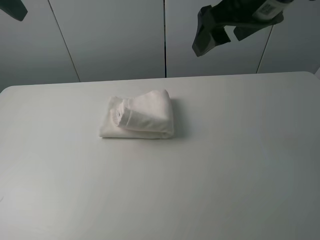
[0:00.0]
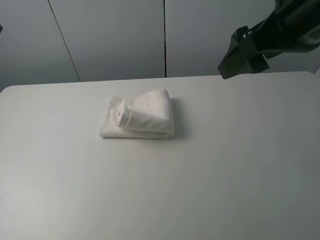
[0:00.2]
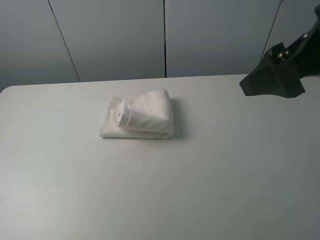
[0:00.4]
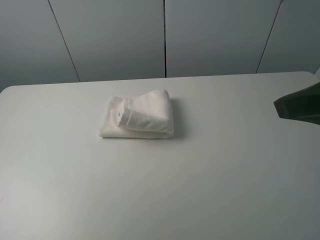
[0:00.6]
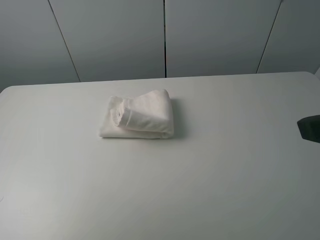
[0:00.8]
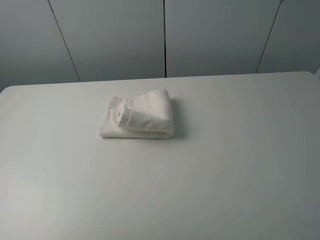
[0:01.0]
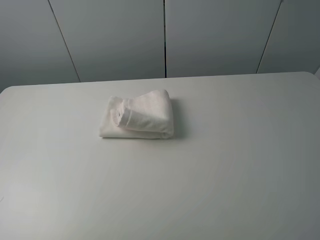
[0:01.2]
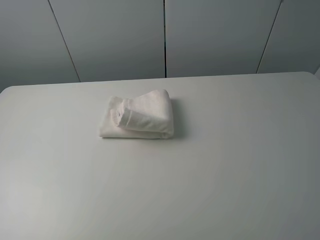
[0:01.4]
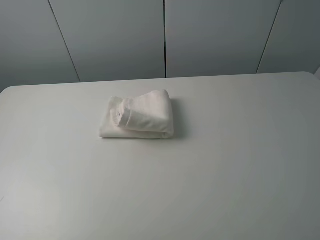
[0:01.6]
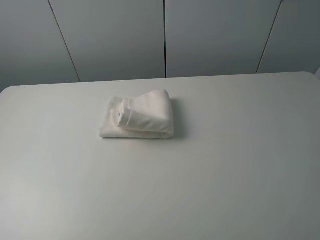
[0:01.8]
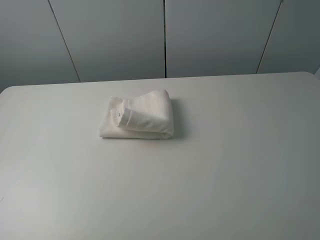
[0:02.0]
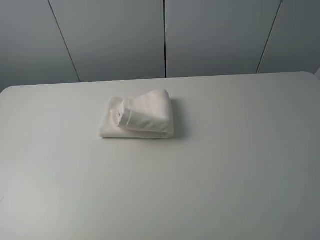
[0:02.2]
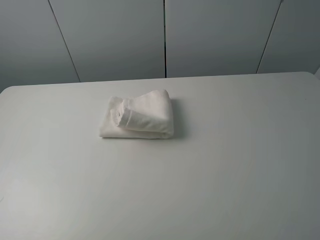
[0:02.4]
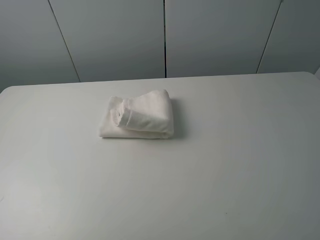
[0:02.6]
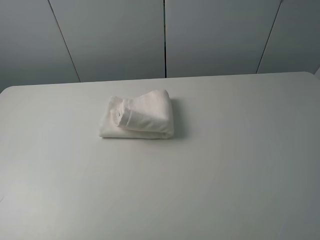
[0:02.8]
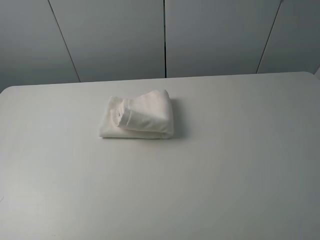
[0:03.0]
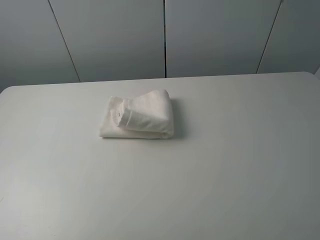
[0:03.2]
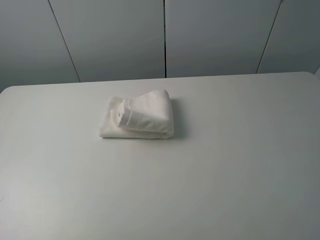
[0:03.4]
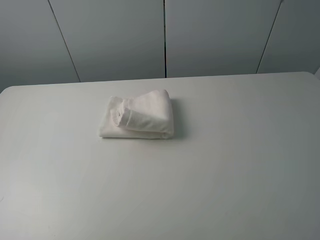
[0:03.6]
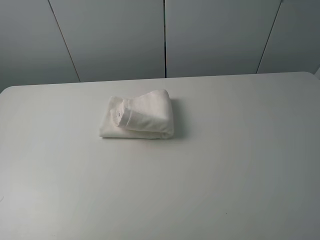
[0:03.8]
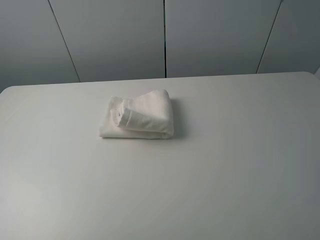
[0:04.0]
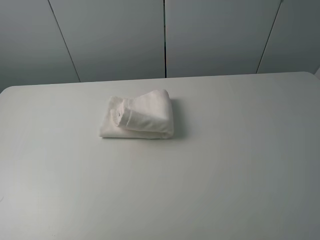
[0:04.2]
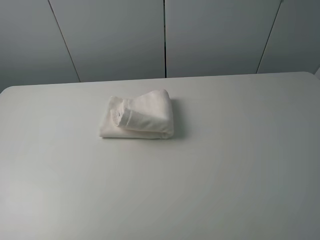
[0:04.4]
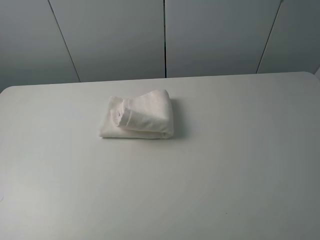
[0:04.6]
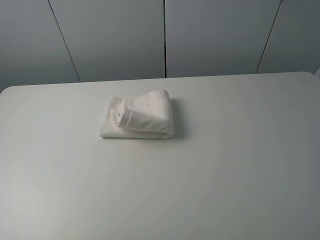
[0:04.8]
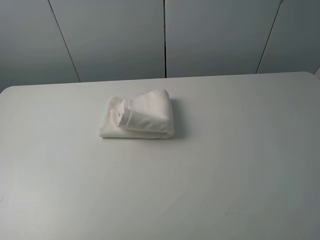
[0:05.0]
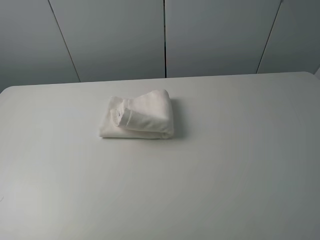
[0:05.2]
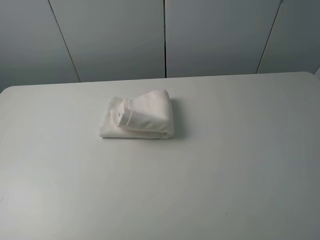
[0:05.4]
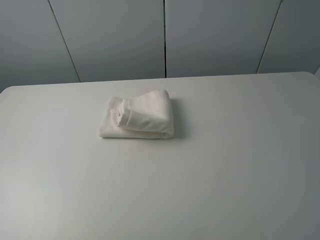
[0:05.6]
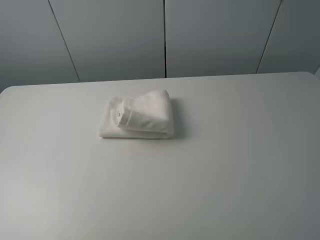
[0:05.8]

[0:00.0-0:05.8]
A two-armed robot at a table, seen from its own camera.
Task of the whole recording: fold the towels on the table.
0:00.0 to 0:01.4: The left gripper heads backward and downward, covering about 30 cm. The right gripper goes approximately 30 cm backward and to the right.
0:04.4 to 0:05.8: Neither gripper changes place.

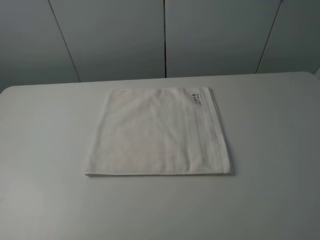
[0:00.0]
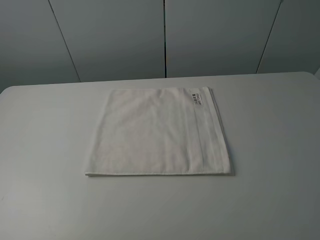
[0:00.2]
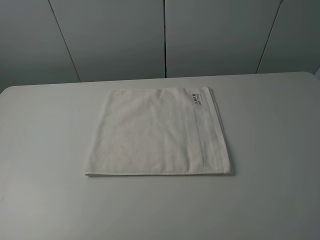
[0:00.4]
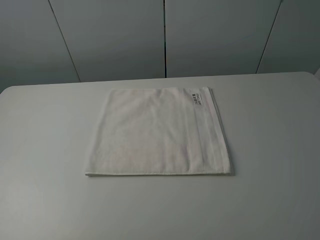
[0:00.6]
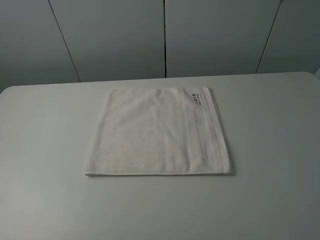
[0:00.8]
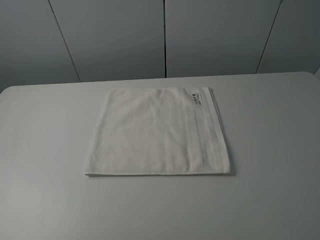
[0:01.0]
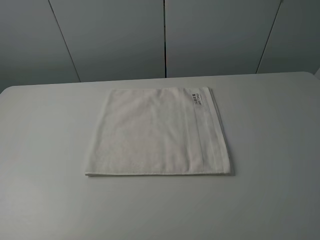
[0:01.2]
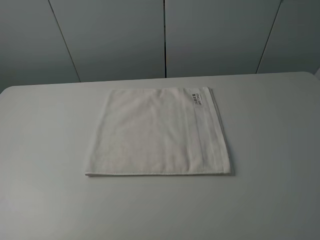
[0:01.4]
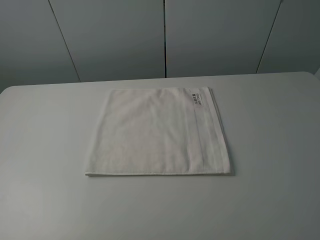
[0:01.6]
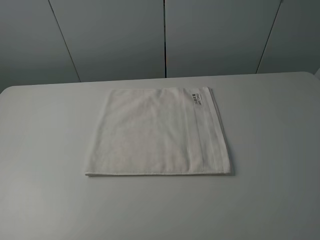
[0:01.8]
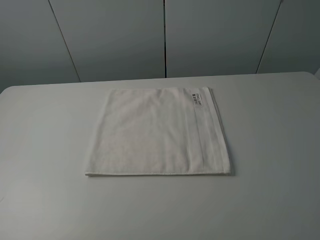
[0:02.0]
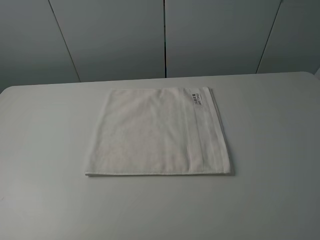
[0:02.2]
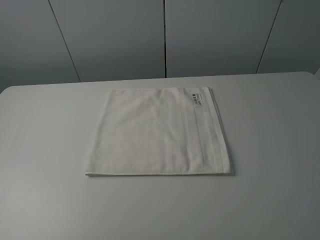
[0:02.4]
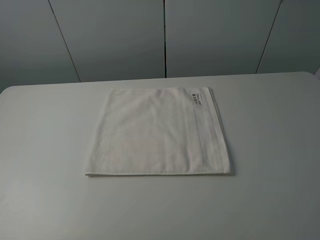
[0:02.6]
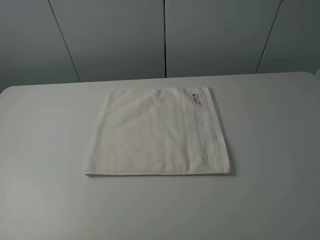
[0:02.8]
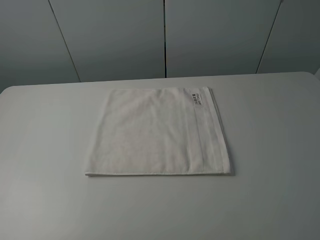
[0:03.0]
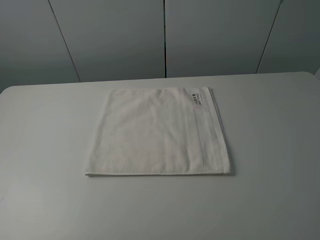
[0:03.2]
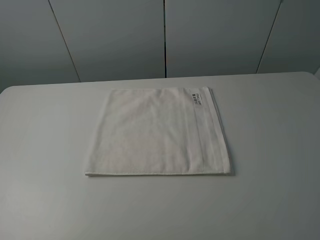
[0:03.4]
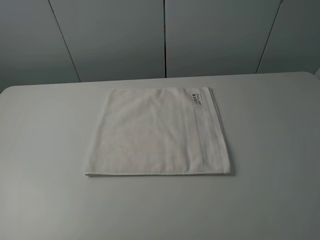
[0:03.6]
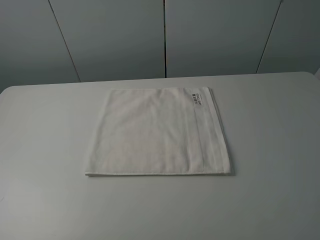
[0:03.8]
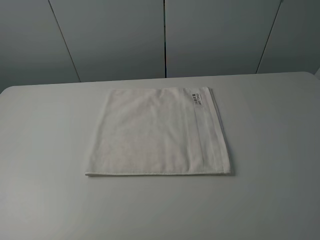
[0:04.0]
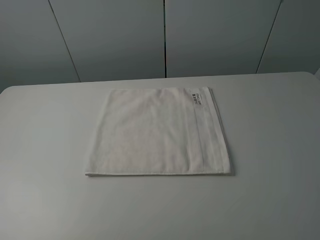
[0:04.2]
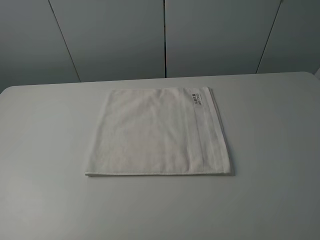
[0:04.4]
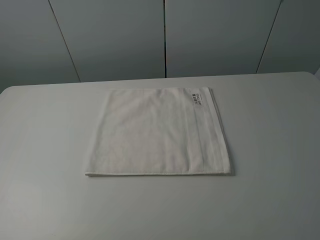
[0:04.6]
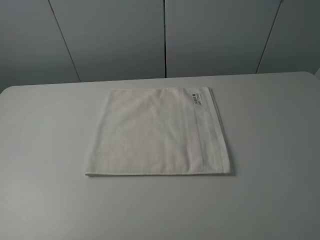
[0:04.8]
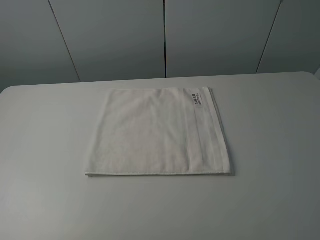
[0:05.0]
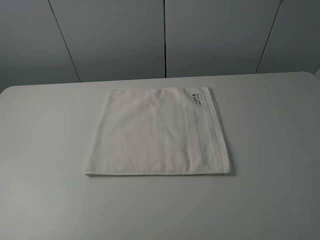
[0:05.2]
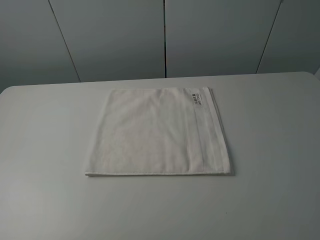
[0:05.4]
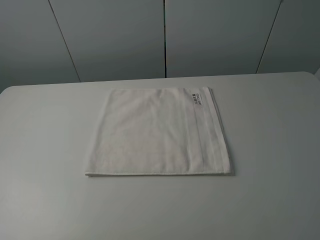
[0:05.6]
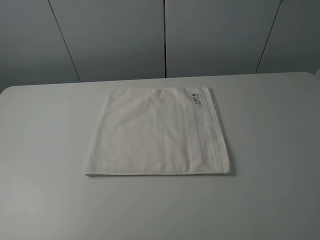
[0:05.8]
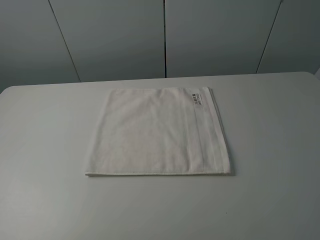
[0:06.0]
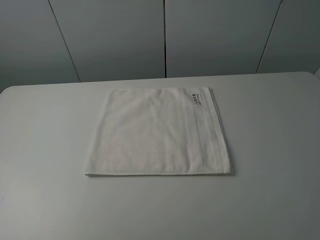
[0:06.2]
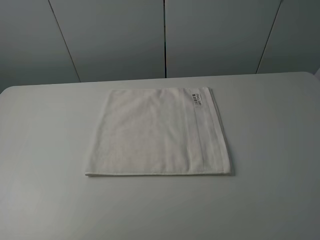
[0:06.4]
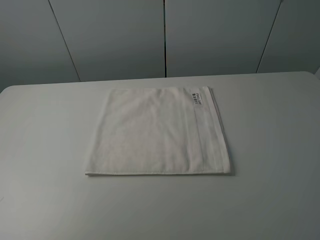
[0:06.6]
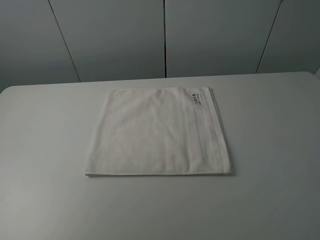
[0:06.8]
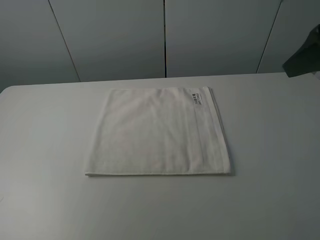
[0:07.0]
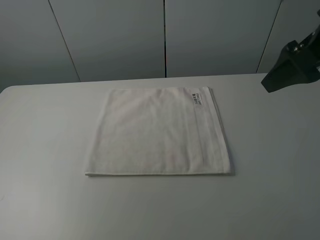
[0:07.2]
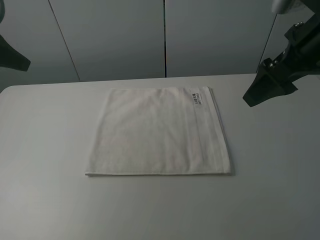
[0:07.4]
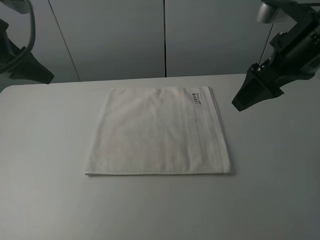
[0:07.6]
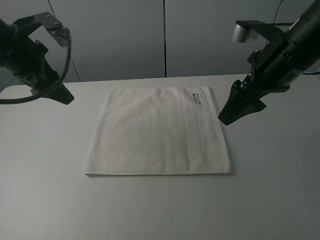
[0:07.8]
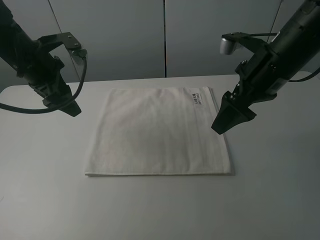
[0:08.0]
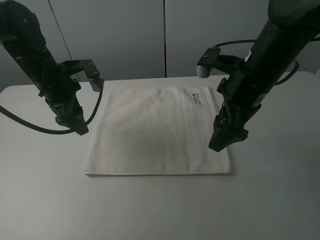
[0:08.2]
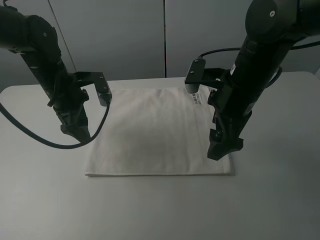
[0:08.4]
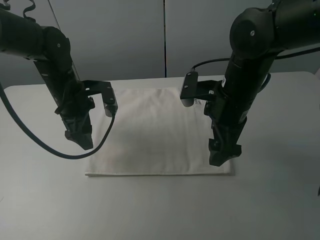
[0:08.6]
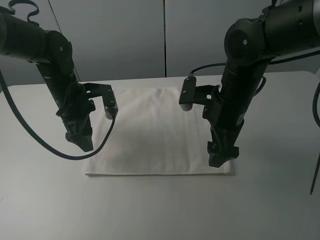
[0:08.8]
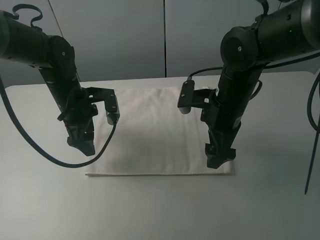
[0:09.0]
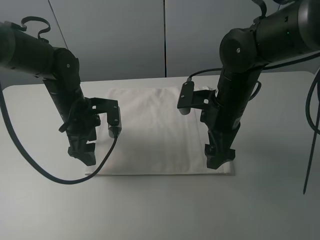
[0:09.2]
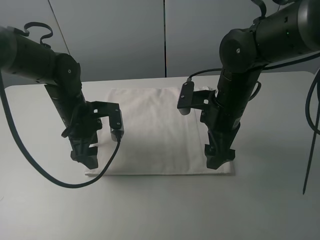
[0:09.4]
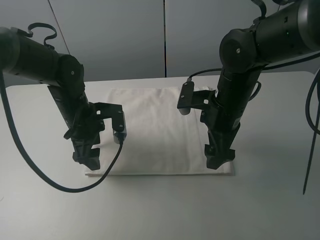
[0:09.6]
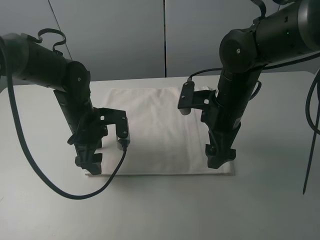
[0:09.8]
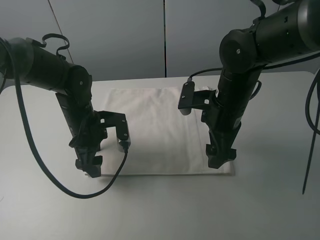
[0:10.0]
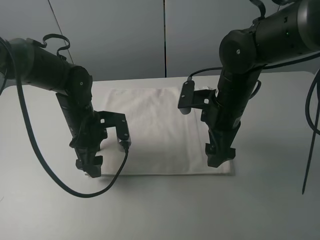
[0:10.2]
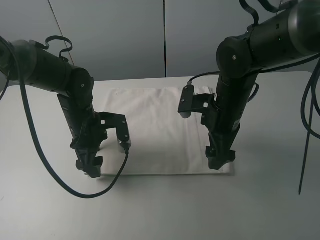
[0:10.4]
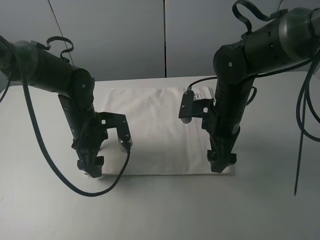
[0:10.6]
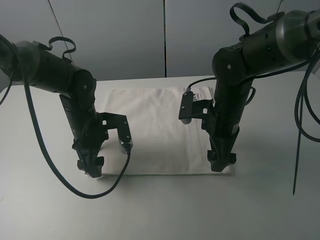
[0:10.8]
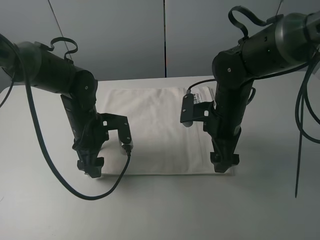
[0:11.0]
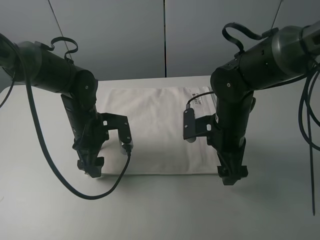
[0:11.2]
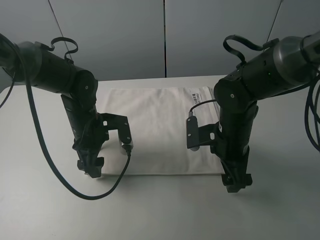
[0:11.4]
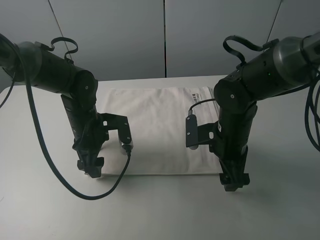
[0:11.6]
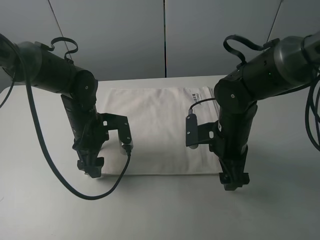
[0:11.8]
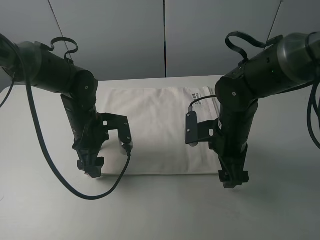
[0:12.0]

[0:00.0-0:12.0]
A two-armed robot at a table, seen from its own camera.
Task of the whole recording: fold the towels on the table.
0:01.6 to 0:03.0: Neither gripper changes place.
0:06.0 to 0:07.6: The left gripper shifts about 30 cm forward and to the right; the right gripper travels forward by about 25 cm.
0:07.6 to 0:09.0: The left gripper heads downward and to the right, covering about 20 cm. Meanwhile the right gripper is displaced downward and to the left by some 15 cm.
0:09.0 to 0:12.0: The grippers move only a little.

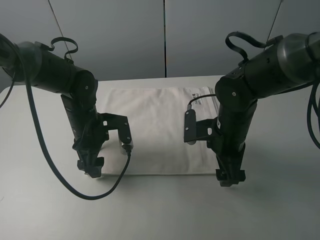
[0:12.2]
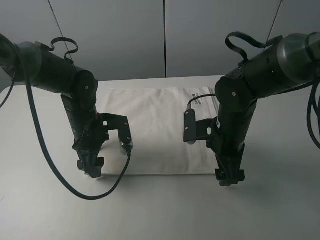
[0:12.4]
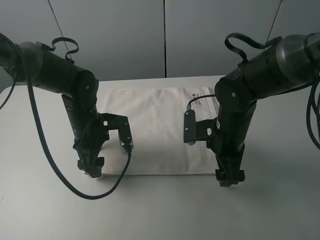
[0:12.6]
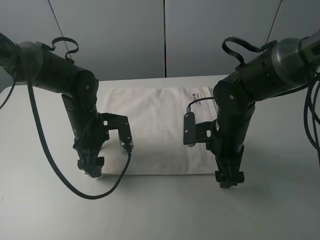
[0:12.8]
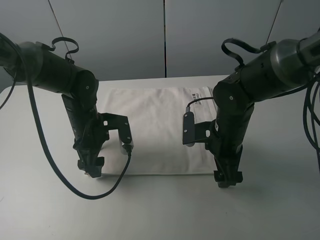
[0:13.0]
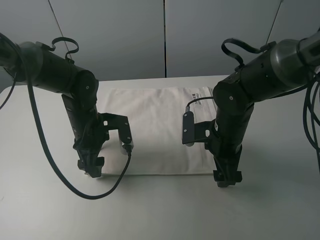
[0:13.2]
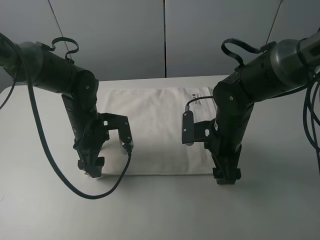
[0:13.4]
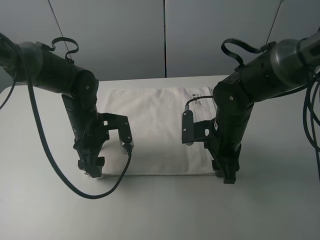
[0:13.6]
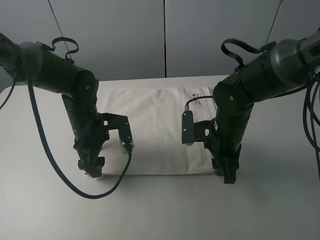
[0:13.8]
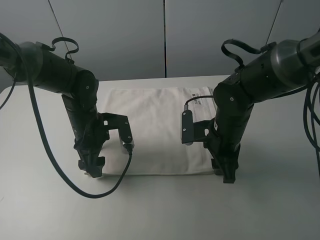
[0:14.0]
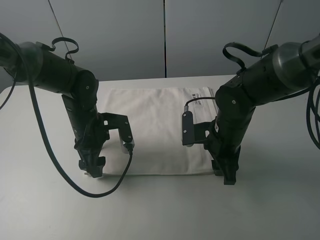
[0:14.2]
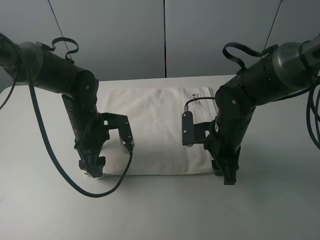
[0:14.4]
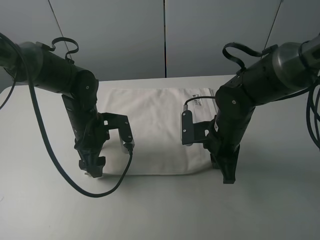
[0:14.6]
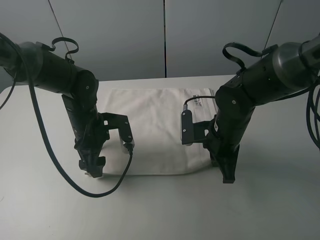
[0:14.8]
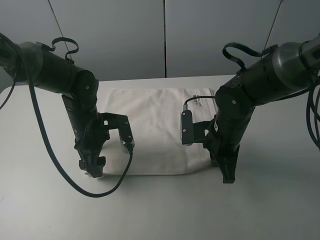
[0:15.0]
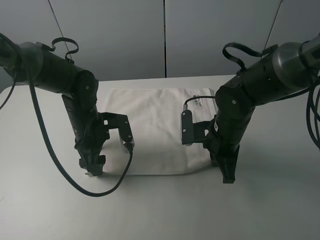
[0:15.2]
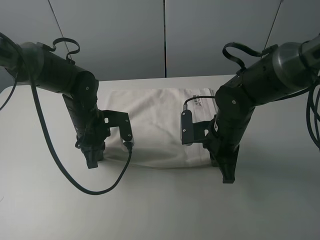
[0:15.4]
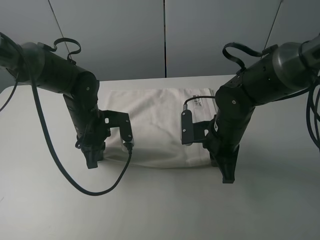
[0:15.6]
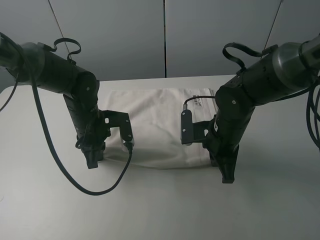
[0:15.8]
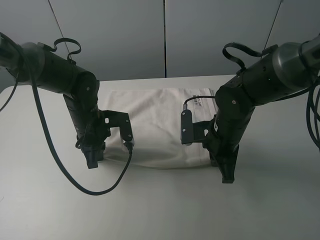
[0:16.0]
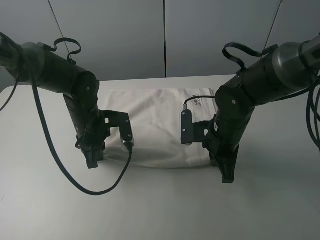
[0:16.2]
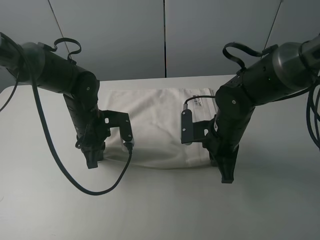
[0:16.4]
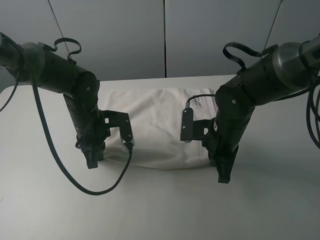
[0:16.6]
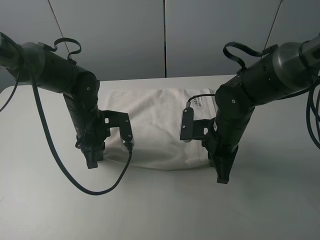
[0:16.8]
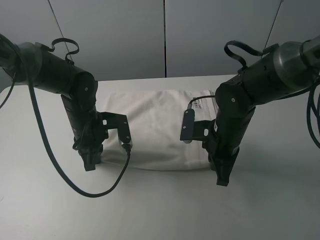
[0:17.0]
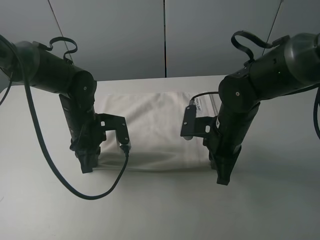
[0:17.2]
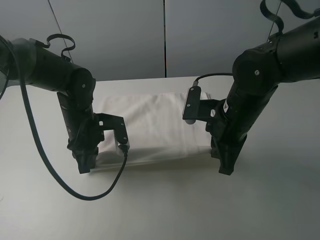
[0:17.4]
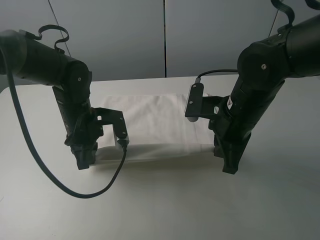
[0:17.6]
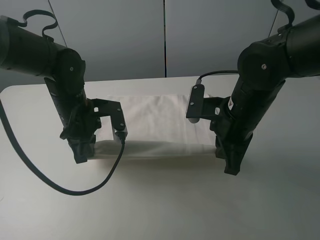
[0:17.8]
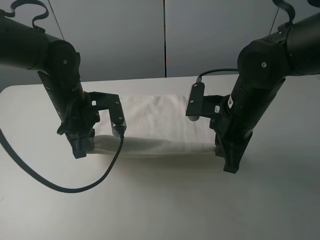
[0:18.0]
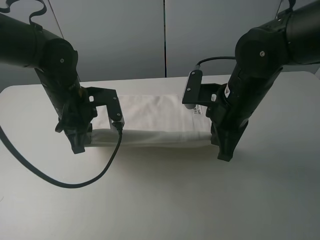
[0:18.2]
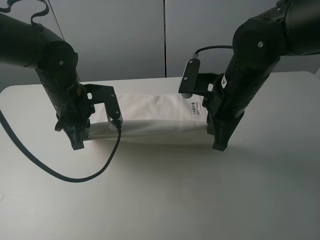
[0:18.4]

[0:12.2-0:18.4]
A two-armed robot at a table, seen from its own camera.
Task of the whole recording: fold the towels on the table.
Step, 0:12.2 to 0:14.8: Grasp the white towel with the right gripper.
Step, 0:15.0 to 0:15.4: Grasp the white towel with the left gripper.
0:12.2 to 0:13.8: The right gripper closes its fingers.
0:13.8 to 0:15.4: The left gripper closes; the right gripper closes its fingers.
0:15.4 to 0:16.8: The grippers move only a little.
0:16.8 to 0:18.4: Both grippers travel together upward, about 10 cm.
